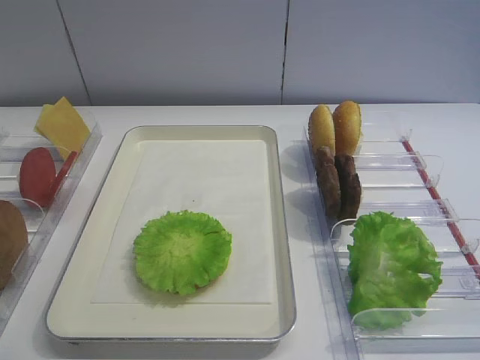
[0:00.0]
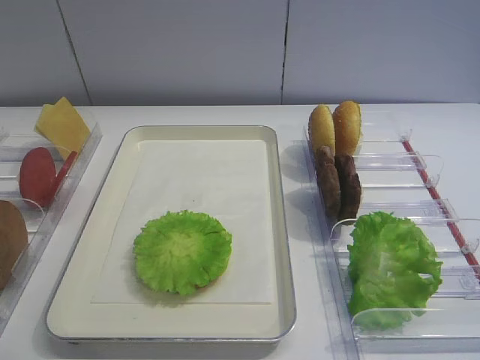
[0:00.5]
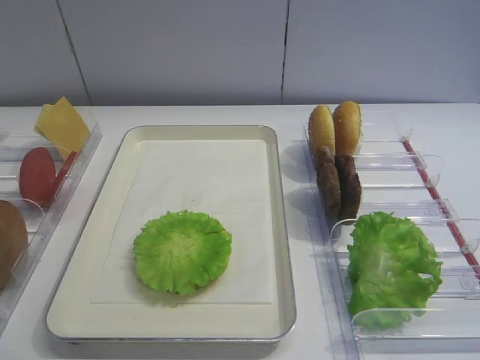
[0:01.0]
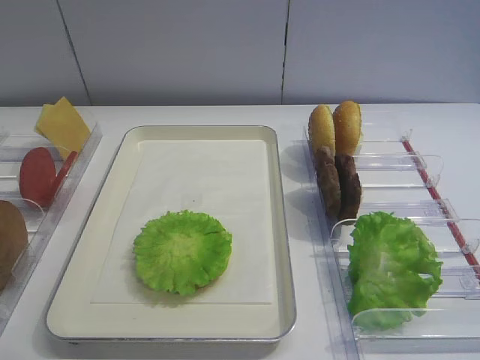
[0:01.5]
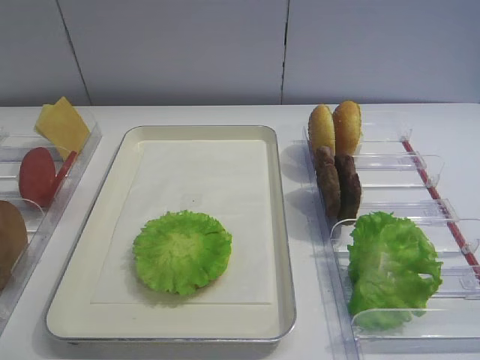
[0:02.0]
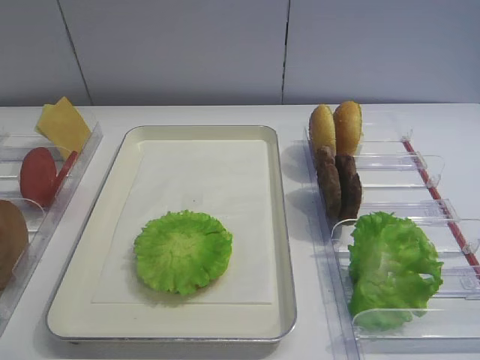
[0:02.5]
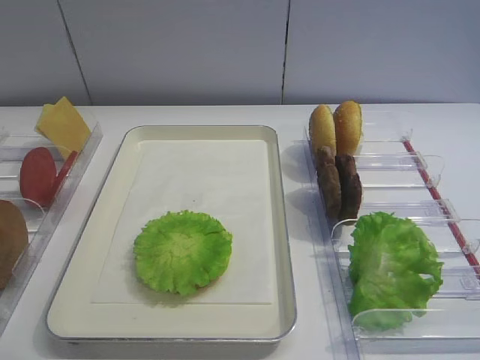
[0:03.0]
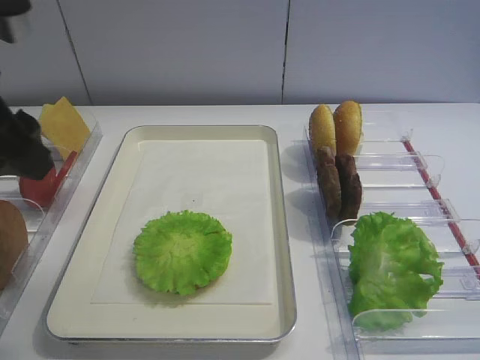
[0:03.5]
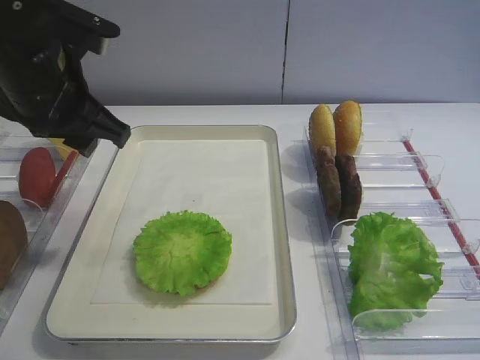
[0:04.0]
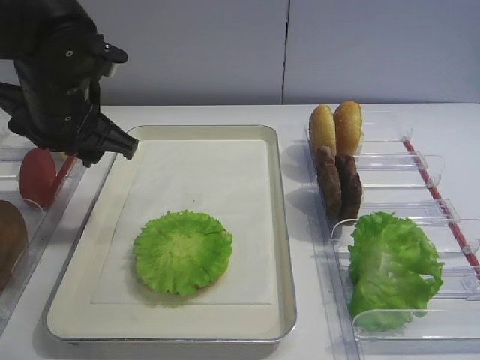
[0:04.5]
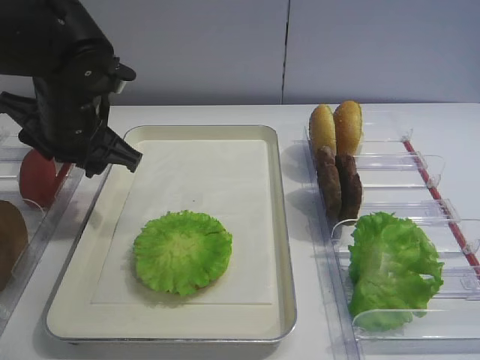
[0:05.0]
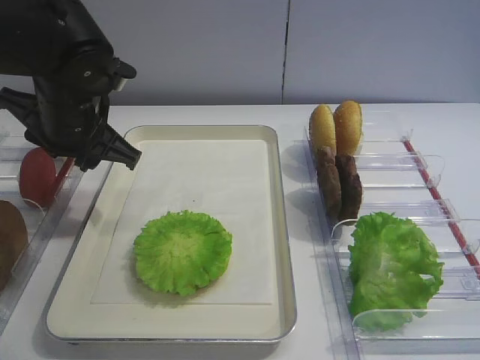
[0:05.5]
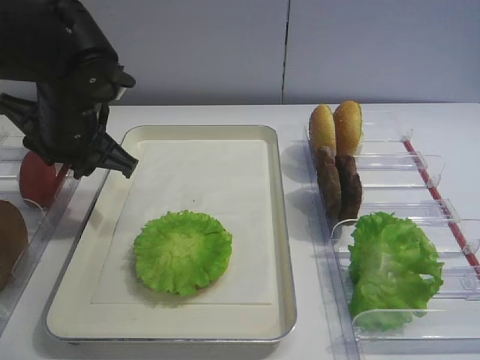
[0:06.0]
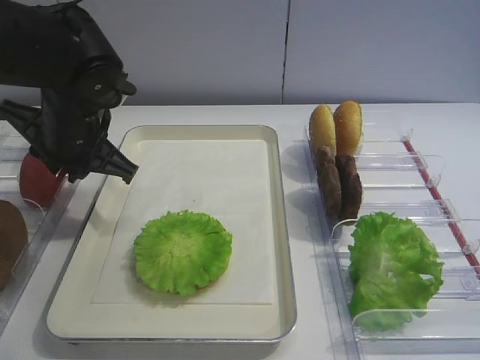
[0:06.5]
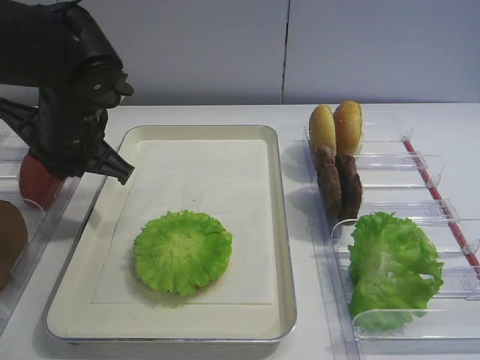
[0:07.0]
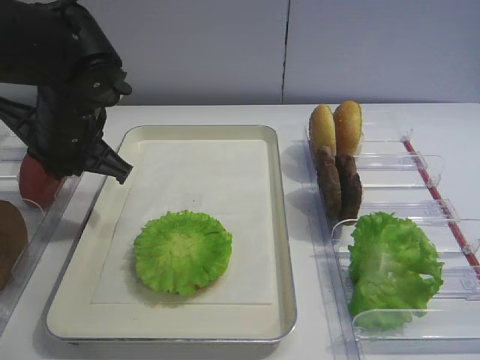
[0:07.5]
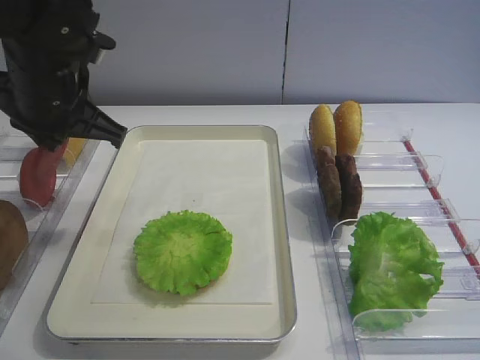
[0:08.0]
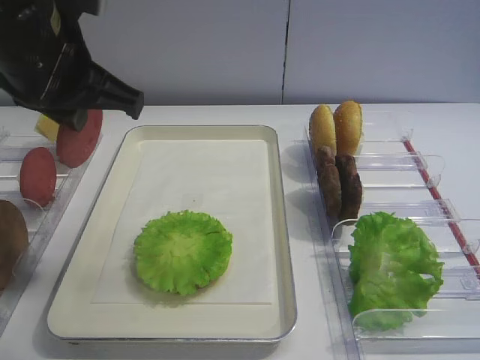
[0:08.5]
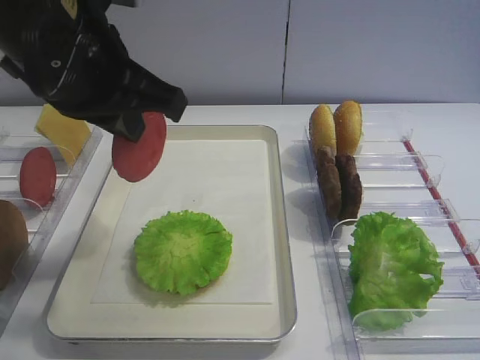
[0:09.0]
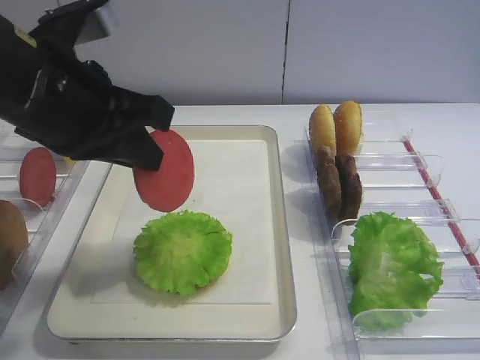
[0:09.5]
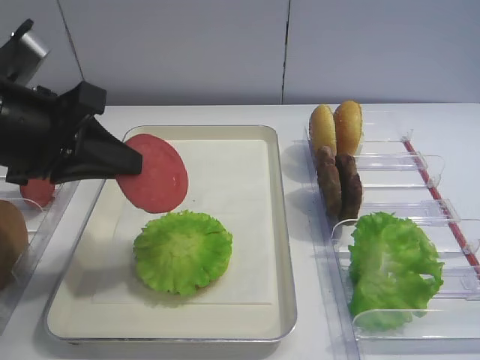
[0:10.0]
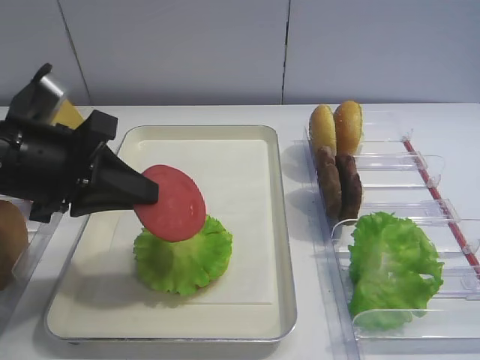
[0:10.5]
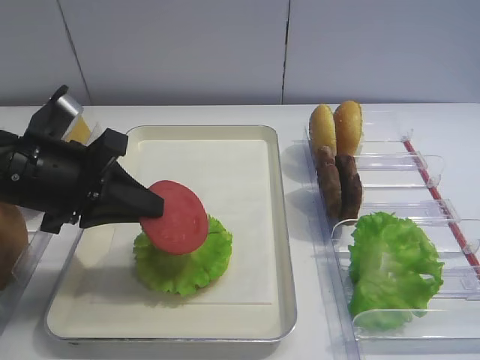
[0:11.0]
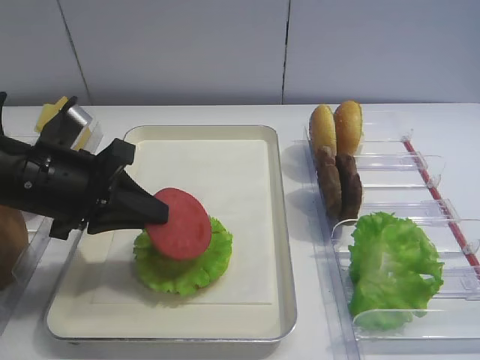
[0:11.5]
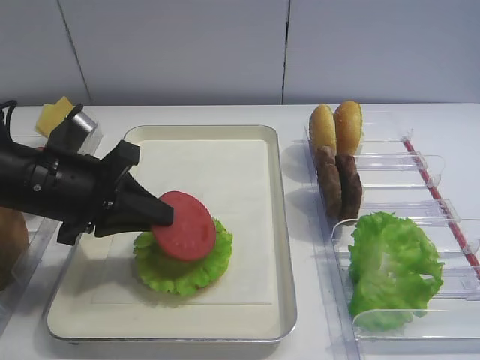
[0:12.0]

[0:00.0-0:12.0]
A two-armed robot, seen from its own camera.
Step, 0:00.0 to 0:08.0: Pick up the tomato slice with the left gripper.
0:02.0 to 0:04.0: The left gripper travels forward by approximately 30 cm.
0:04.0 to 0:06.0: The left gripper shifts some 5 cm downward.
0:06.0 to 0:08.0: The left gripper moves upward, approximately 5 cm, and closes its fingers.
0:08.0 to 0:10.0: The left gripper shifts some 10 cm backward.
0:10.0 to 0:12.0: The left gripper goes roughly 10 cm downward.

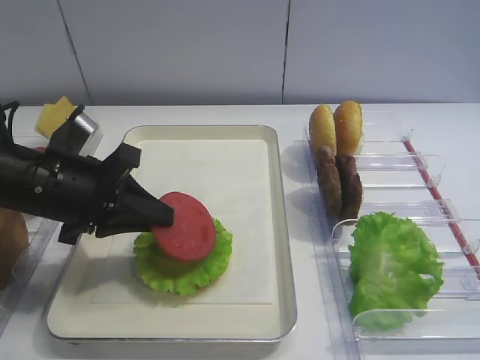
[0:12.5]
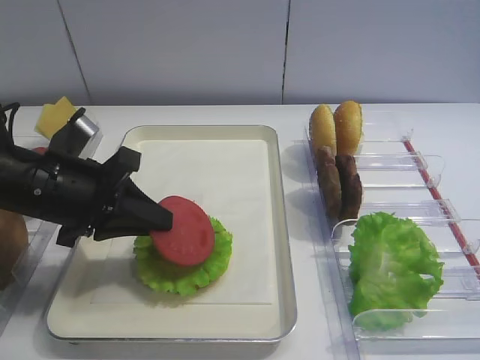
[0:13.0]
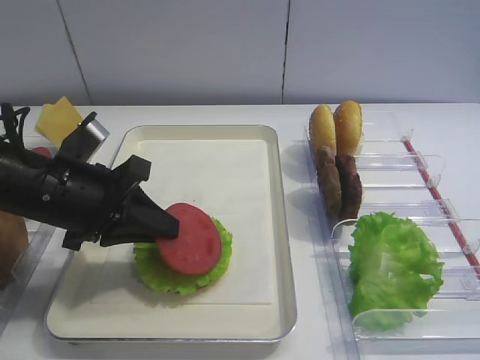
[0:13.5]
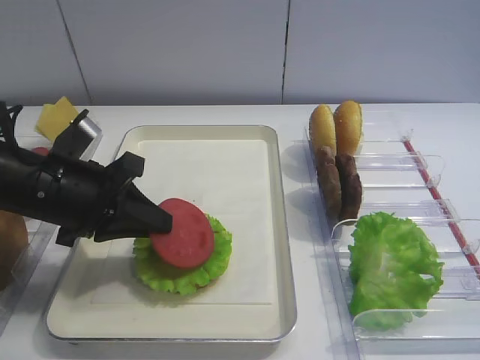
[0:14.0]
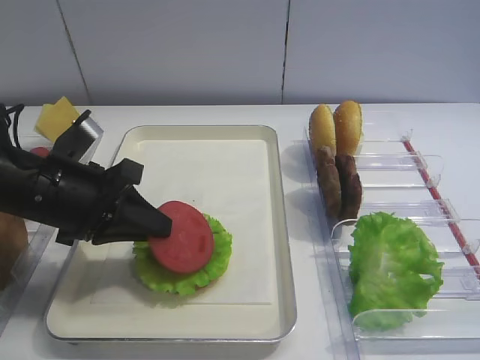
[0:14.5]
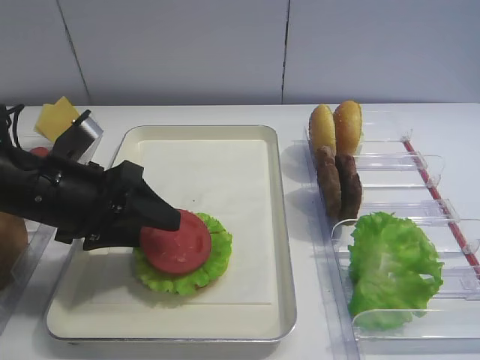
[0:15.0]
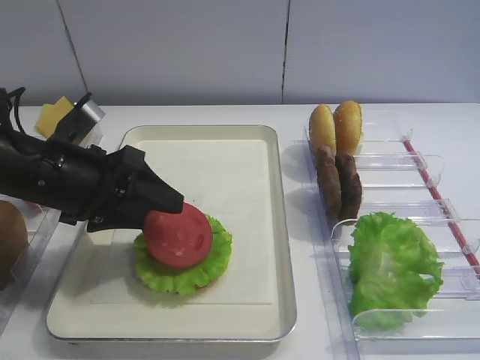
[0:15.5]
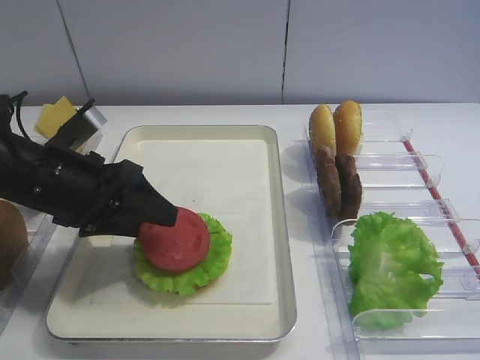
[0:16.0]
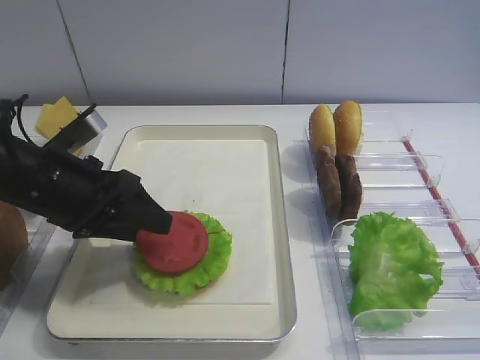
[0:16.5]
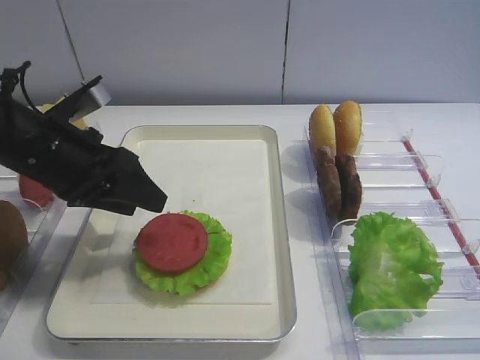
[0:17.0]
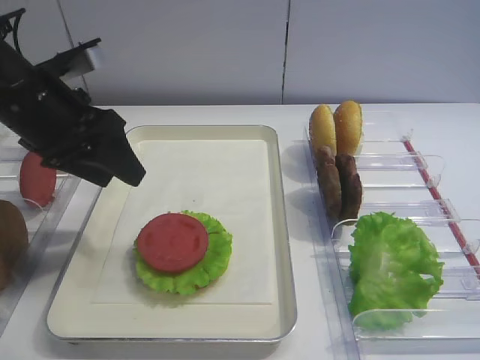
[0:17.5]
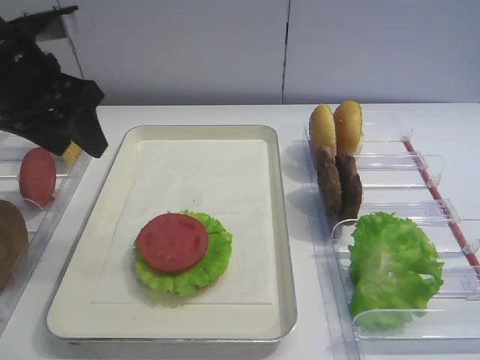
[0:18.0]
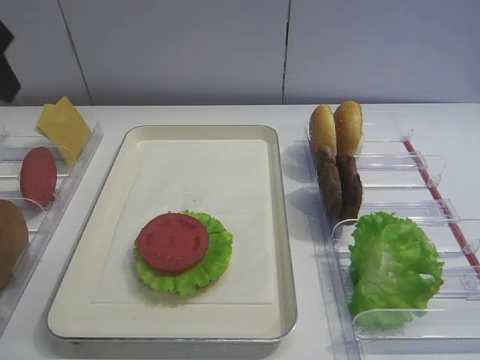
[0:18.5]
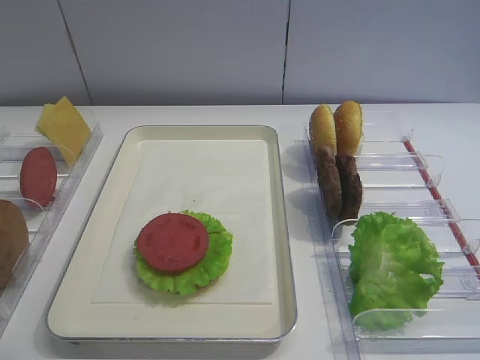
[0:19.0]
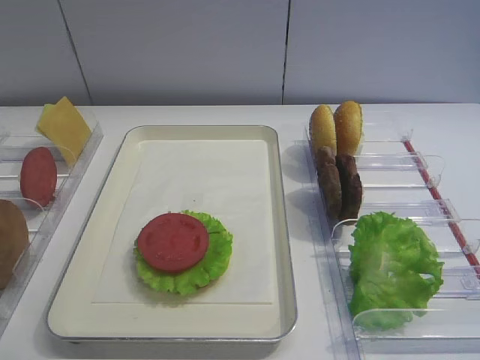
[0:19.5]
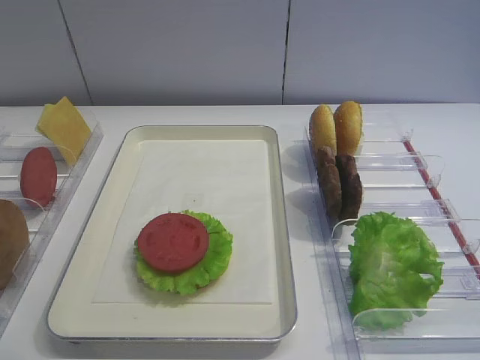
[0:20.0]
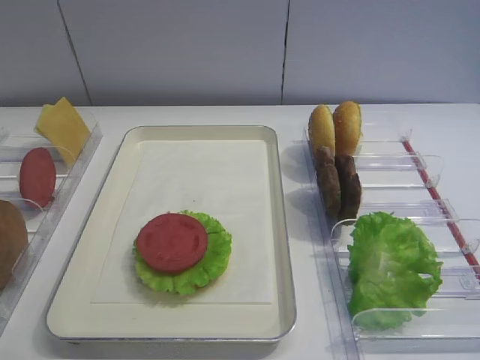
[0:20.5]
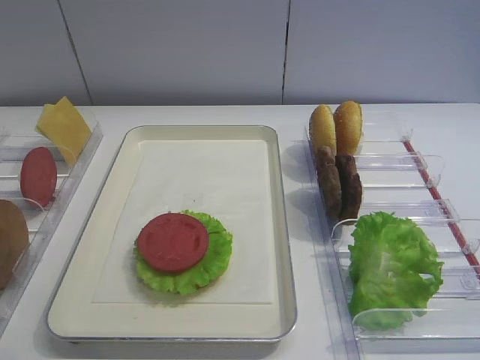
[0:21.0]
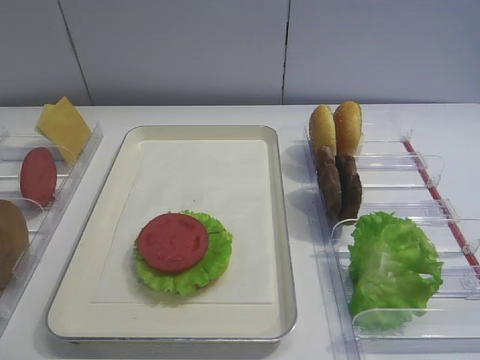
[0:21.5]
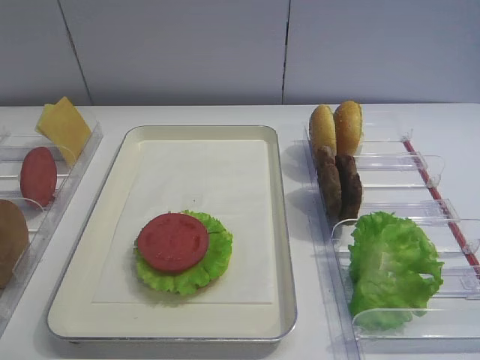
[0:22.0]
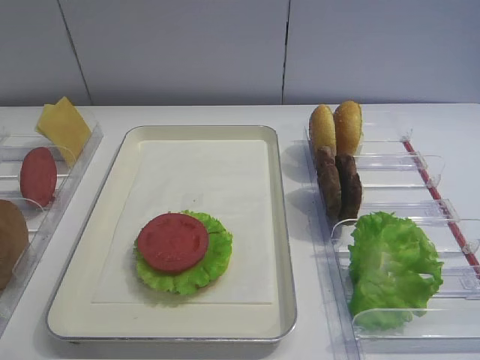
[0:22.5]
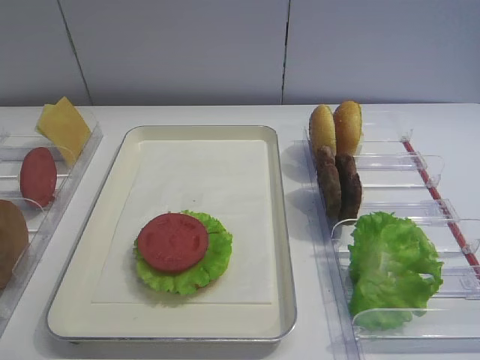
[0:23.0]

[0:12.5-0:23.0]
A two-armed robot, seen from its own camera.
Step, 0:12.5 to 0:17.0: Place the tomato slice on the lettuce leaf with the left gripper.
0:12.5 to 0:14.5: The grippers stay close to where they were, moving slightly.
0:14.5 to 0:16.5: The left gripper opens.
0:16.5 to 0:19.0: The left gripper goes roughly 25 cm upward and backward.

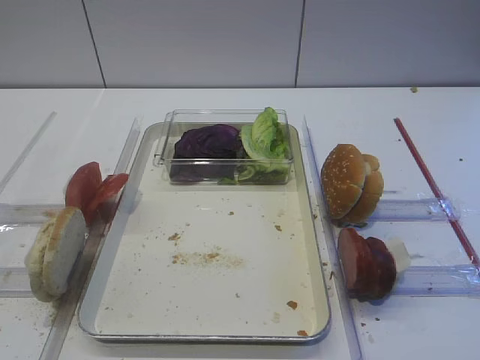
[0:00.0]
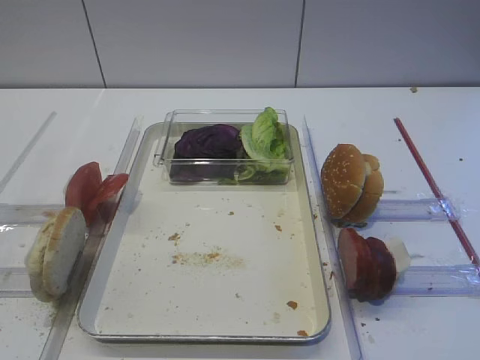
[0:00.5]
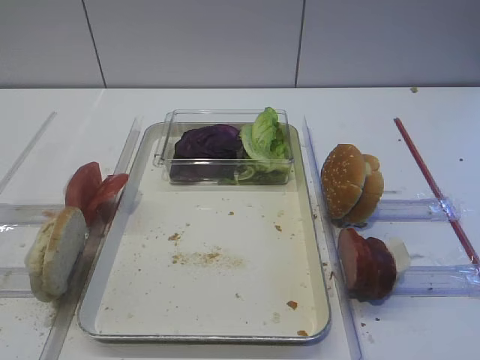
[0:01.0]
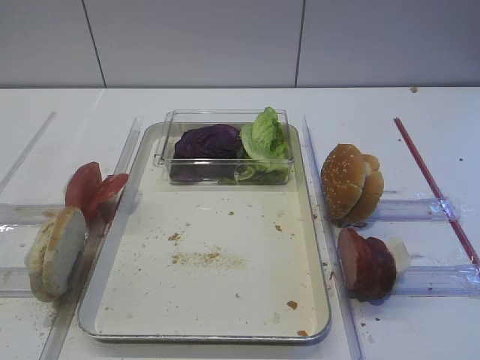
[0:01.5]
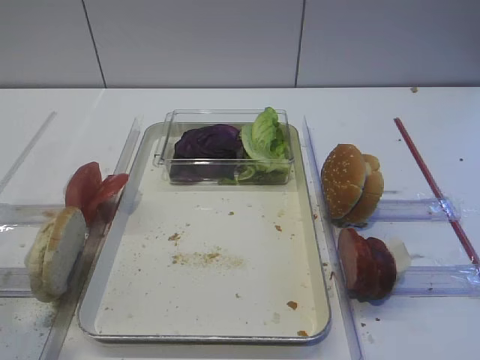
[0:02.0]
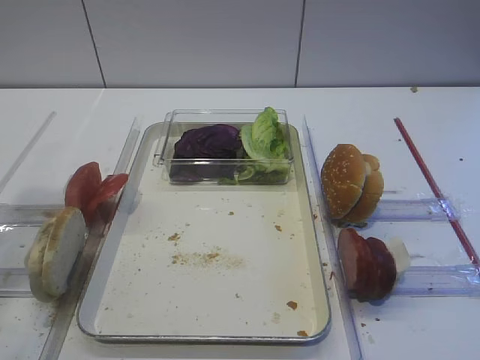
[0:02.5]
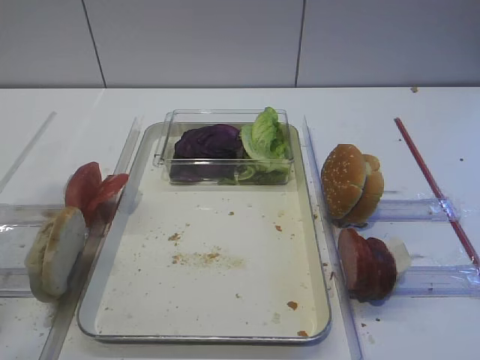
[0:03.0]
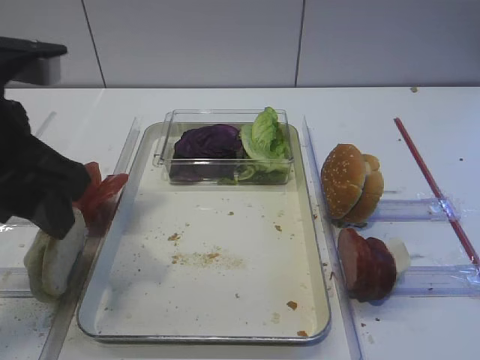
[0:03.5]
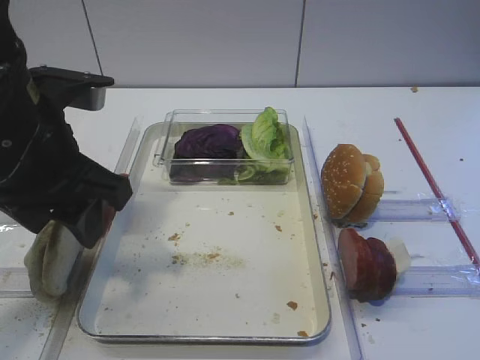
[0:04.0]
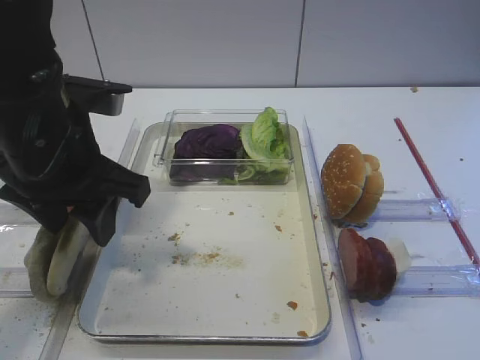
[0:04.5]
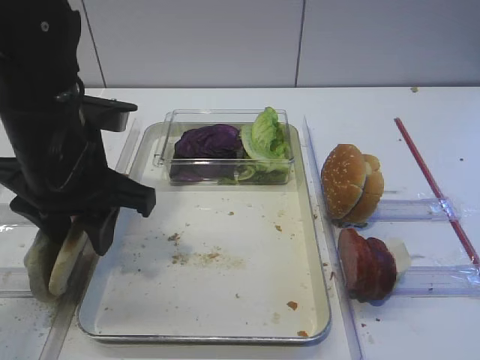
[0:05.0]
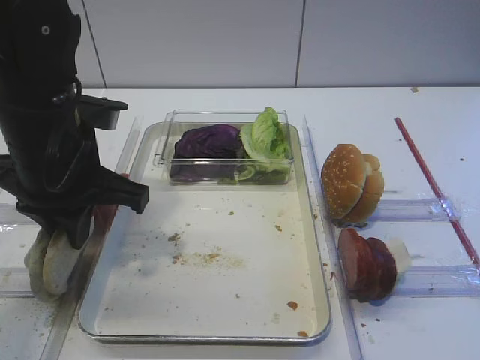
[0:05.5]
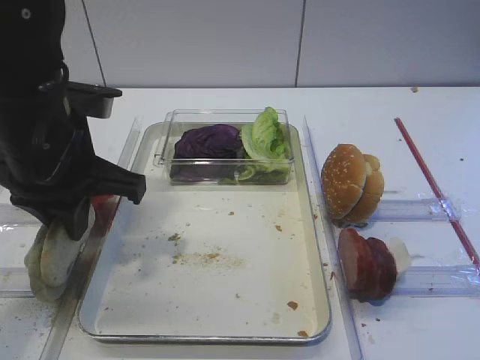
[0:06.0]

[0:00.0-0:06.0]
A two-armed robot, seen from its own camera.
0:02.0 to 0:04.0: The left gripper is displaced forward and to the right by some 20 cm.
0:04.0 to 0:06.0: The left gripper closes up.
